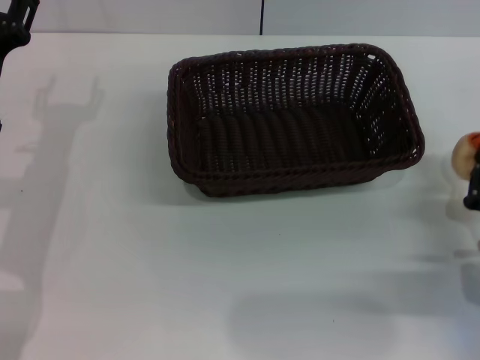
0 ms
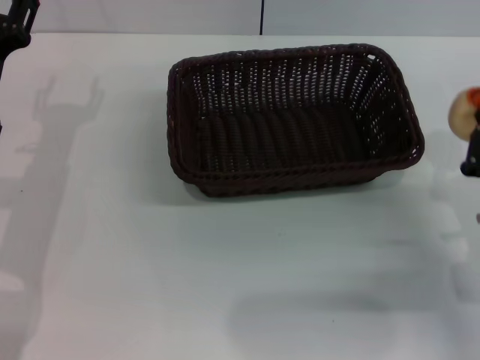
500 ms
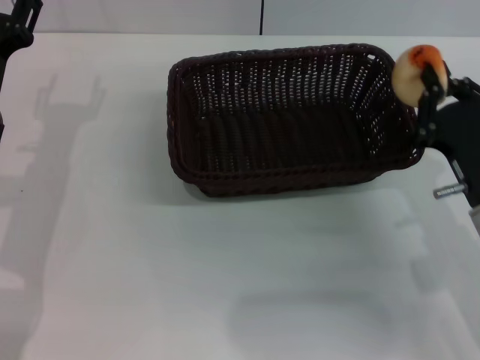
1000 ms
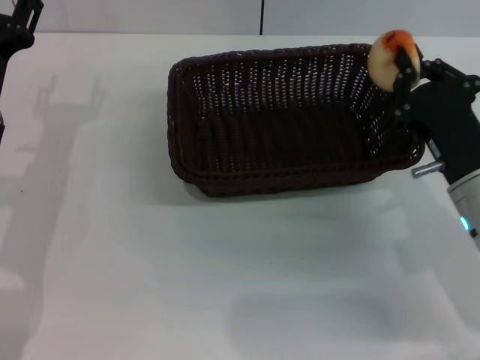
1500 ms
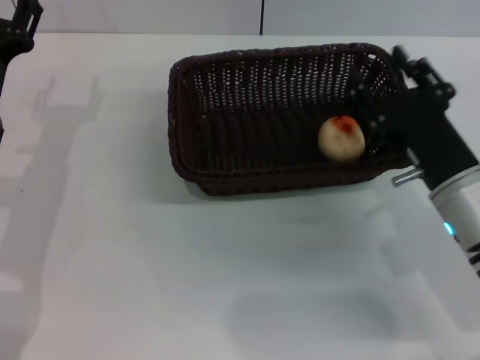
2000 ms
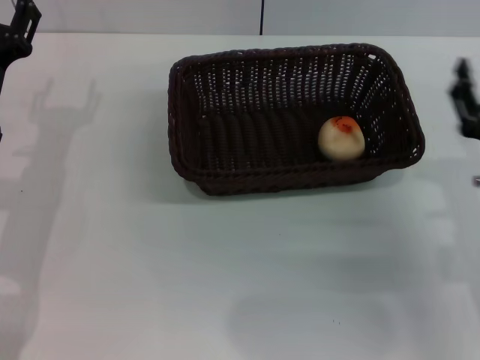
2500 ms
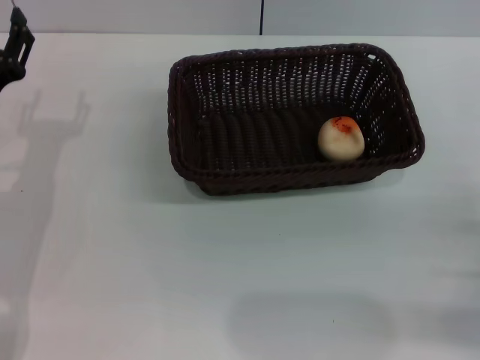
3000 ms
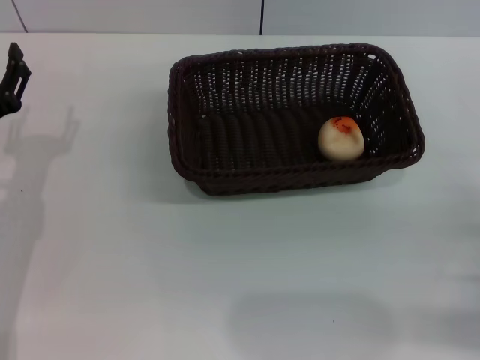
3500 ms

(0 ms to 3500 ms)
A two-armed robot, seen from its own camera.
Step, 500 ms - 2000 ms: Place the egg yolk pastry into the basket with the right gripper.
0 ms - 2000 ms: The right gripper goes roughly 10 cm to the left and upward.
2000 ms - 3500 ms: The right gripper is displaced to the right, backward and downward by roughly 15 cm, and opens its fingers; the left gripper changes place by about 5 cm.
